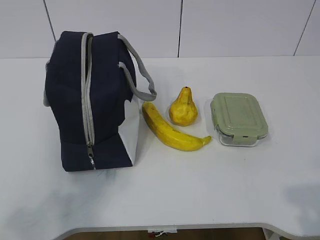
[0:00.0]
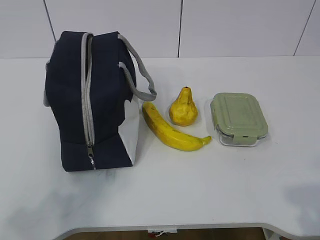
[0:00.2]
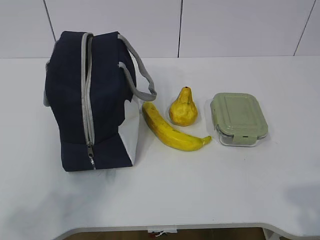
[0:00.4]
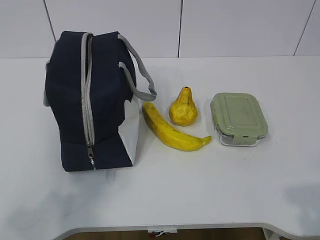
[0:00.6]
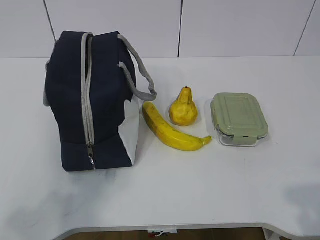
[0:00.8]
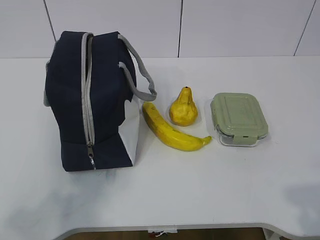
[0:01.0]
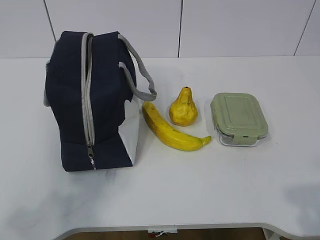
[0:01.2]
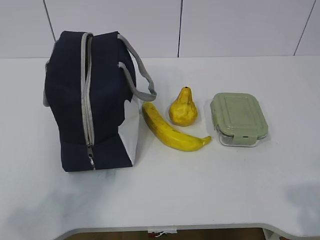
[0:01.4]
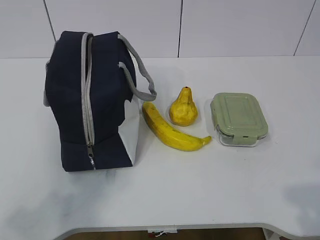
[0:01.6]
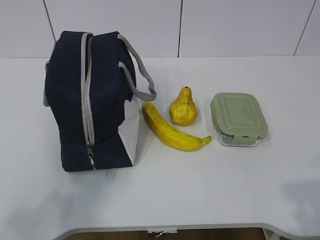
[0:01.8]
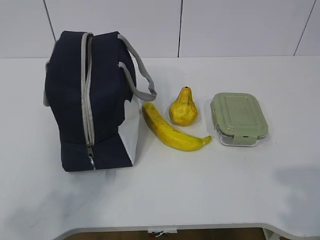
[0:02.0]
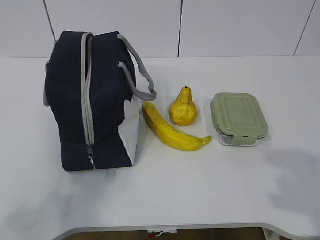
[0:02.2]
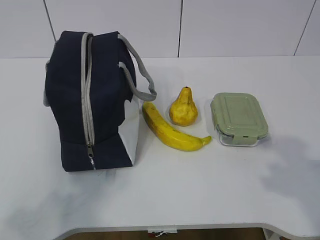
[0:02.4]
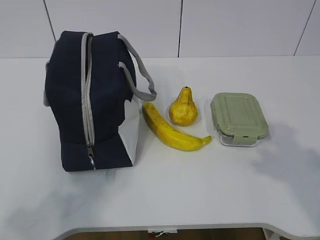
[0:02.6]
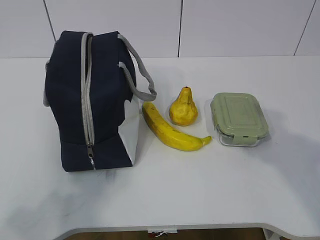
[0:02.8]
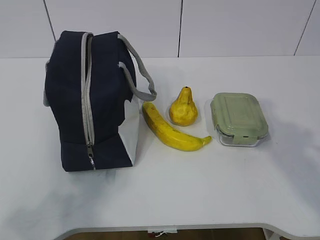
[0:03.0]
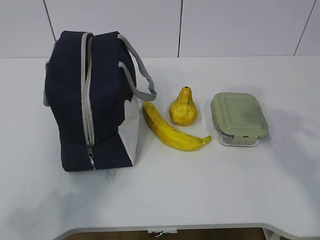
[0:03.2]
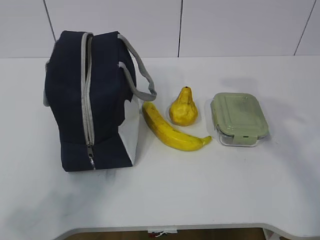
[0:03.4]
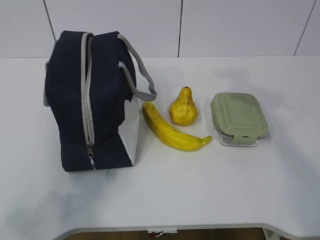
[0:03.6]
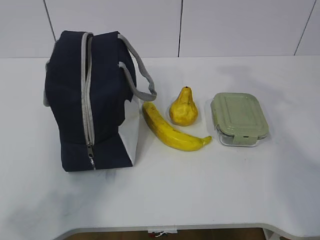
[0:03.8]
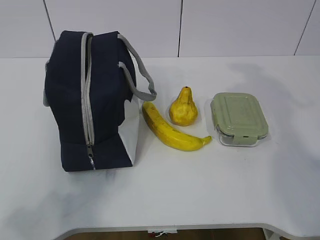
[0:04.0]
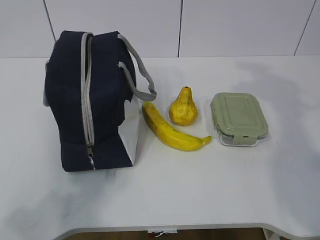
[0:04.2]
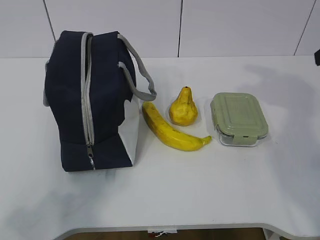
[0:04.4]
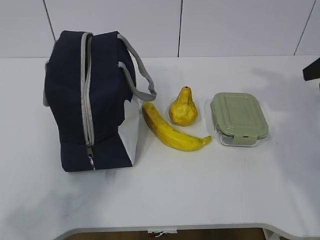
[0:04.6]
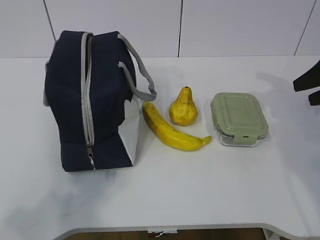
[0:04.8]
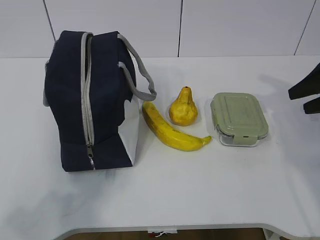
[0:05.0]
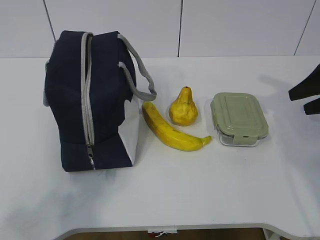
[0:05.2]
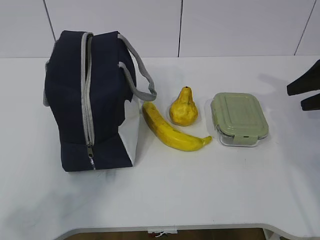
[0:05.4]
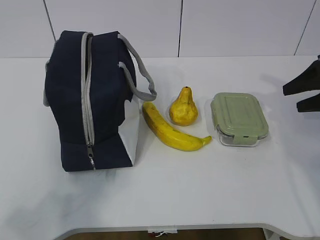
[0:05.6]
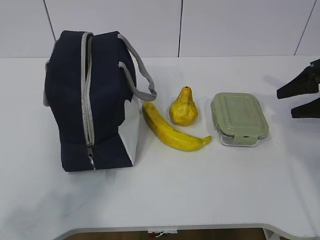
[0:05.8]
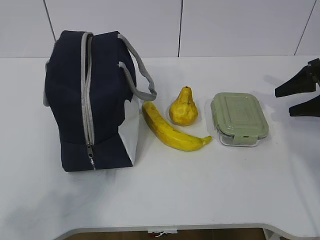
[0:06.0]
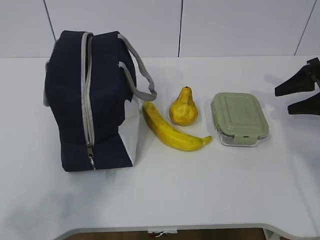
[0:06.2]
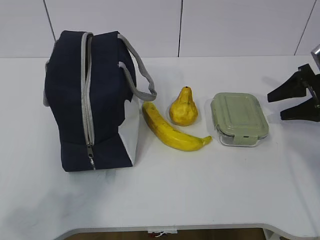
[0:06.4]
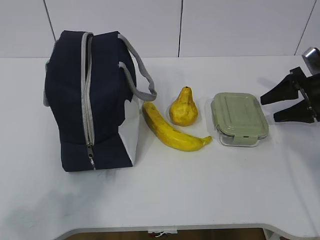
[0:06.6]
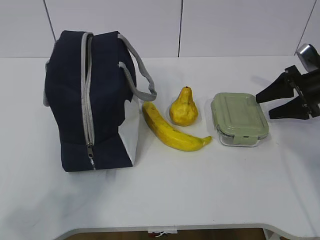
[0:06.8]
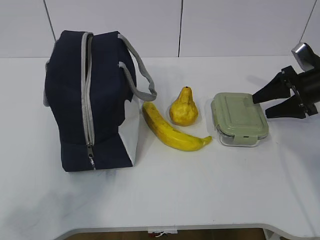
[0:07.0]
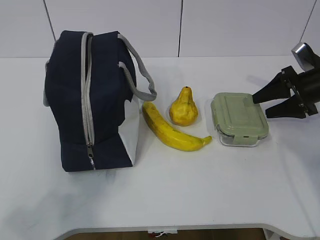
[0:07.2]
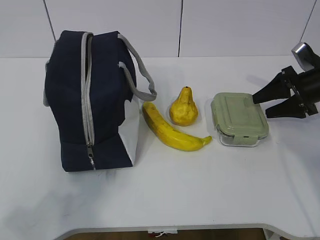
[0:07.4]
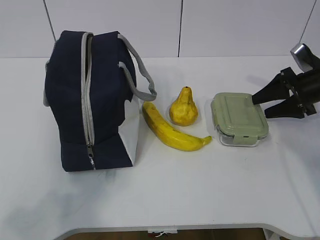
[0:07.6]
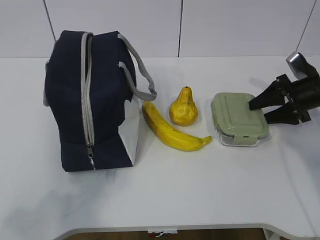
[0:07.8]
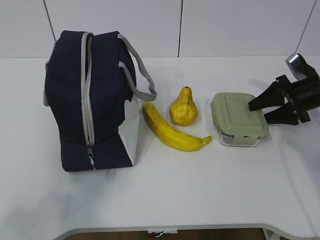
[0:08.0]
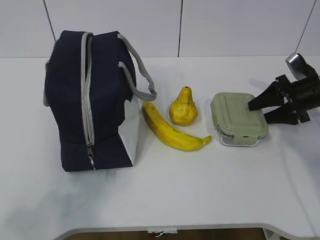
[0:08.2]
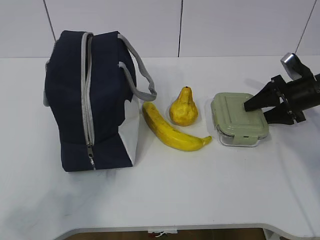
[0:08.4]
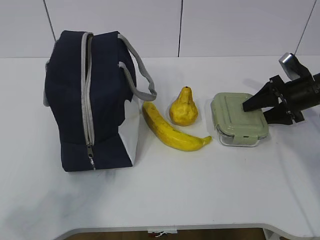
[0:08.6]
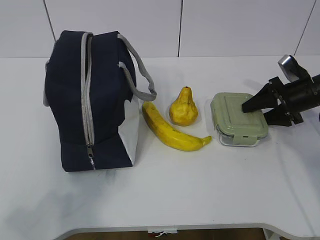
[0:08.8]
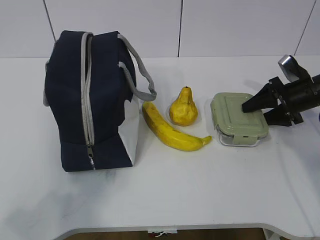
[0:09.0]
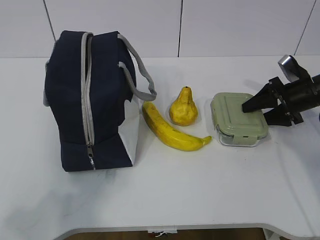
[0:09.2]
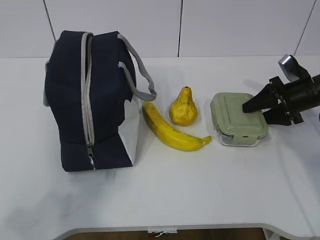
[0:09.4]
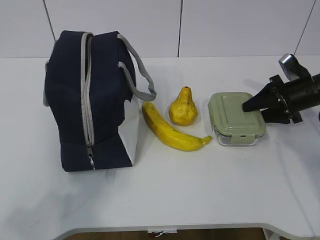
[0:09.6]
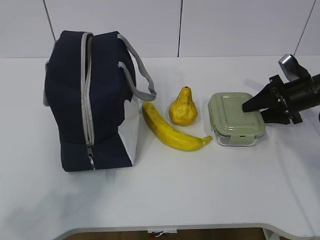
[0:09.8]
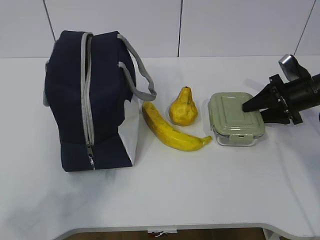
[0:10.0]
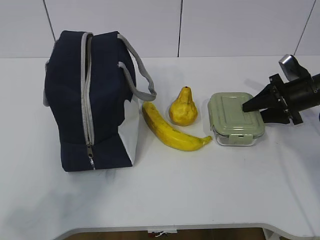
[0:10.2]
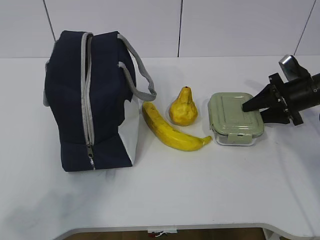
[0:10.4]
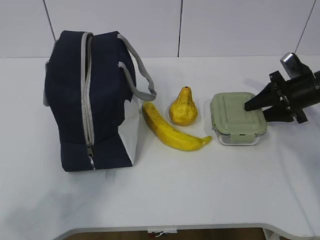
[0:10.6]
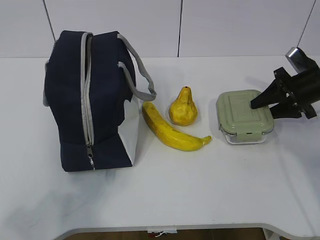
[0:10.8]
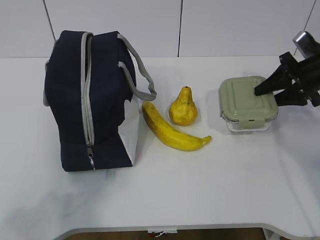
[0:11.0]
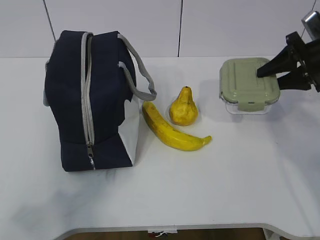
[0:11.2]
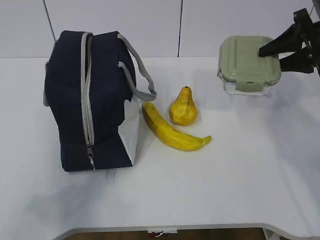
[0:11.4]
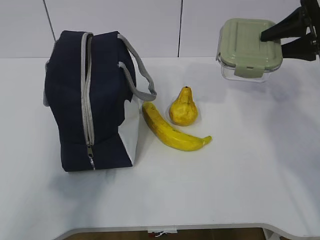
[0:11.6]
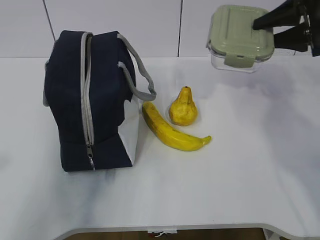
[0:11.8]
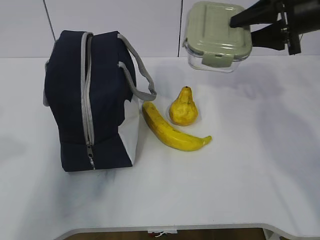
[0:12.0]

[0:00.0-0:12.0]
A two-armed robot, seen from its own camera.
Step, 0:00.0 to 0:08.4: Grab the lunch box with your right hand.
0:01.6 to 0:03.0: The right gripper goes roughly 15 cm forward and upward.
0:04.4 to 0:06.0: The right gripper shifts approximately 15 cm downward and forward.
0:06.0 to 0:07.6: The right gripper ends up approximately 5 cm from where it was.
0:07.6 to 0:10.4: The grippers make only small movements.
0:10.4 to 0:12.0: The right gripper shifts roughly 15 cm upward, while the left gripper moves forward, about 15 cm.

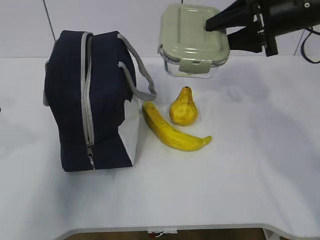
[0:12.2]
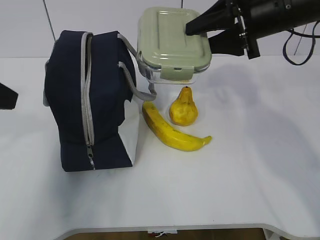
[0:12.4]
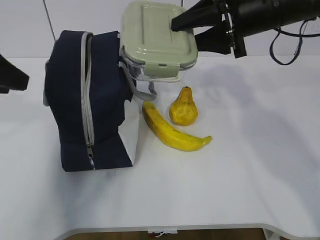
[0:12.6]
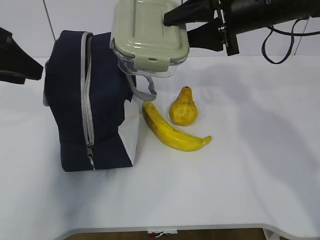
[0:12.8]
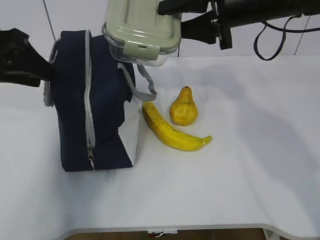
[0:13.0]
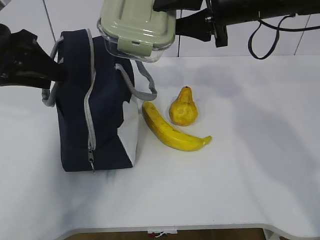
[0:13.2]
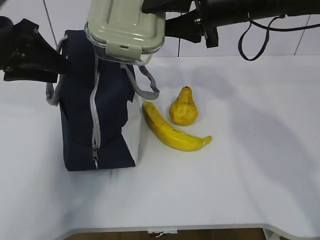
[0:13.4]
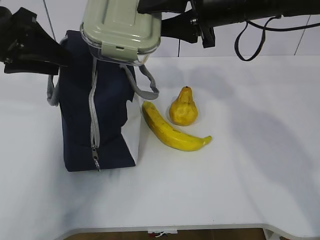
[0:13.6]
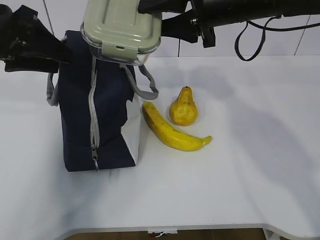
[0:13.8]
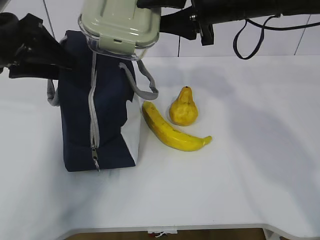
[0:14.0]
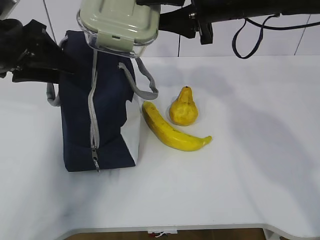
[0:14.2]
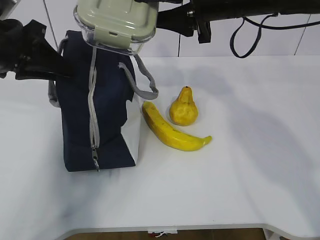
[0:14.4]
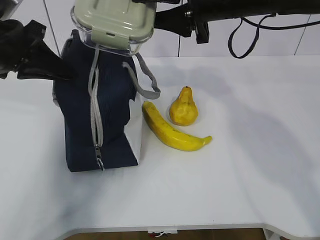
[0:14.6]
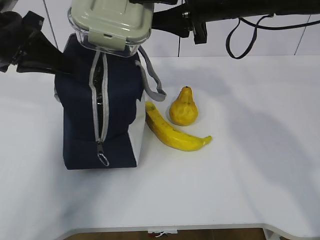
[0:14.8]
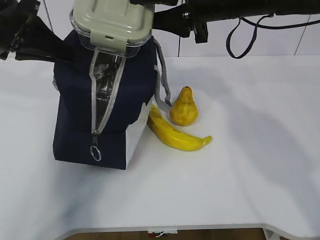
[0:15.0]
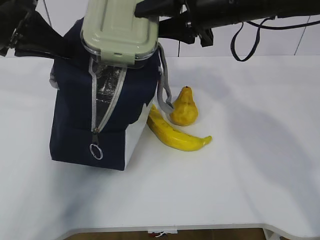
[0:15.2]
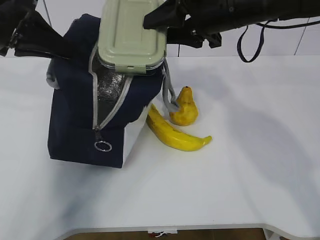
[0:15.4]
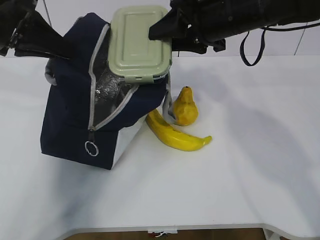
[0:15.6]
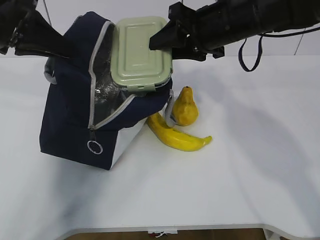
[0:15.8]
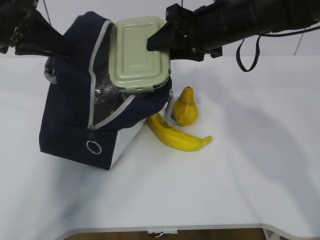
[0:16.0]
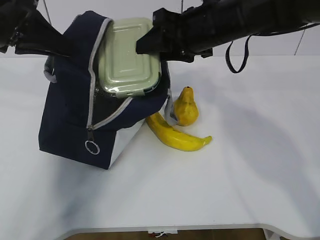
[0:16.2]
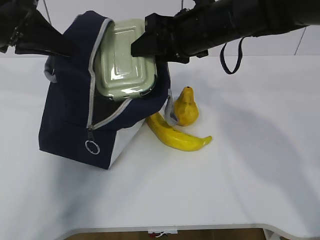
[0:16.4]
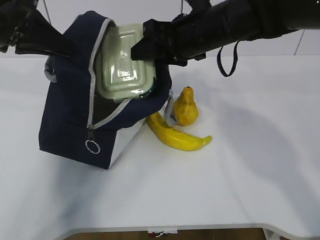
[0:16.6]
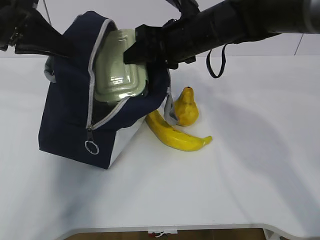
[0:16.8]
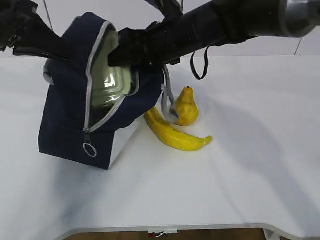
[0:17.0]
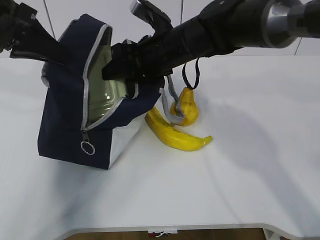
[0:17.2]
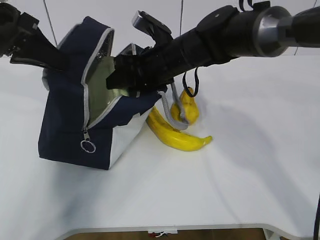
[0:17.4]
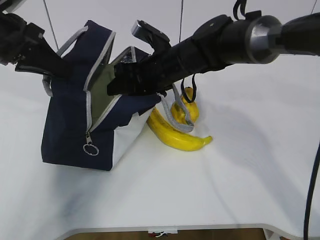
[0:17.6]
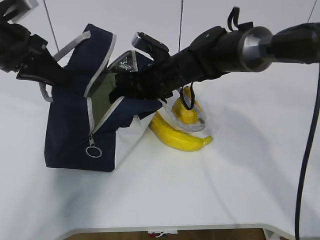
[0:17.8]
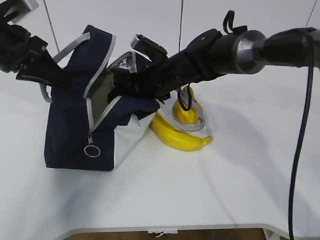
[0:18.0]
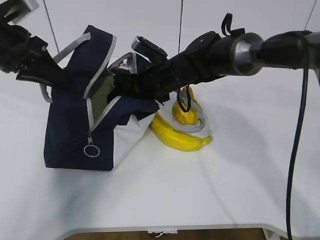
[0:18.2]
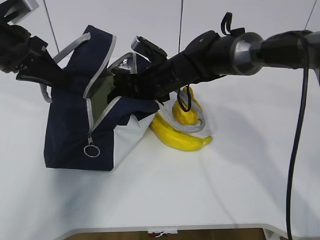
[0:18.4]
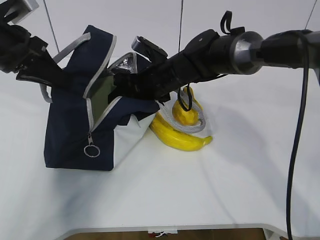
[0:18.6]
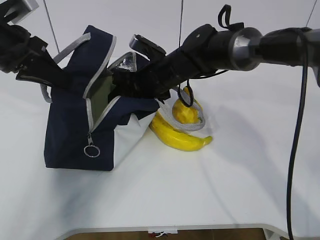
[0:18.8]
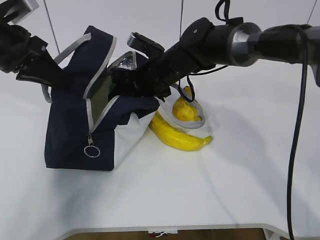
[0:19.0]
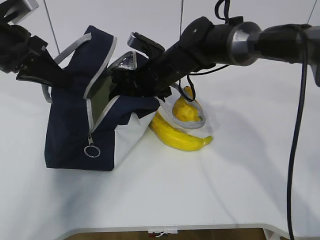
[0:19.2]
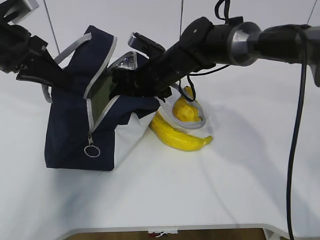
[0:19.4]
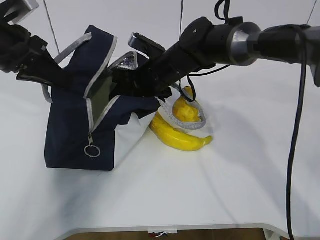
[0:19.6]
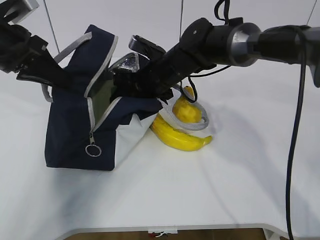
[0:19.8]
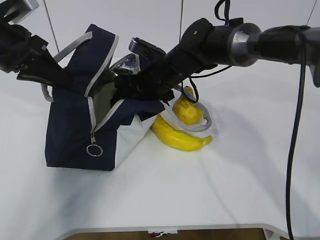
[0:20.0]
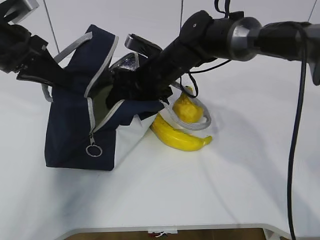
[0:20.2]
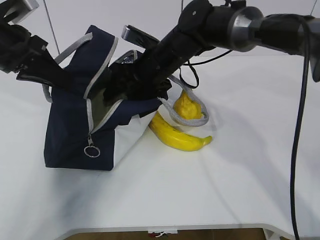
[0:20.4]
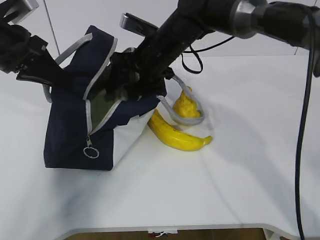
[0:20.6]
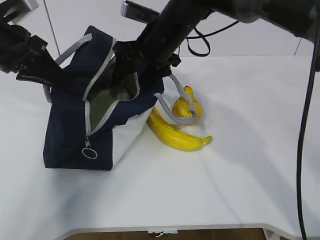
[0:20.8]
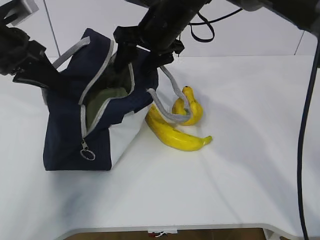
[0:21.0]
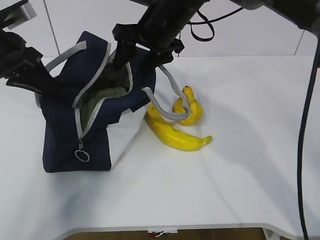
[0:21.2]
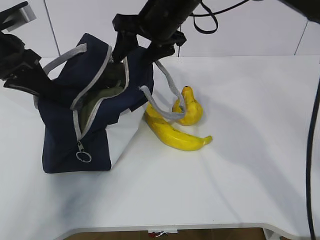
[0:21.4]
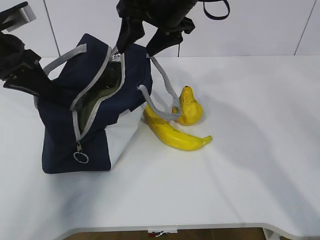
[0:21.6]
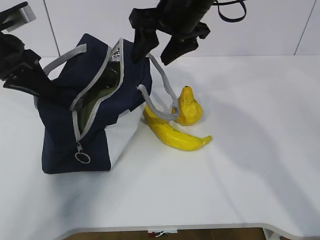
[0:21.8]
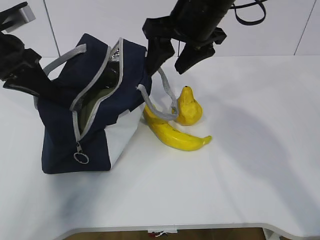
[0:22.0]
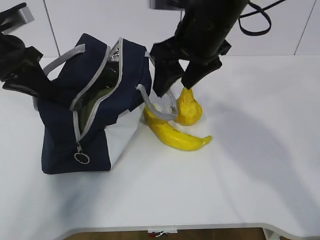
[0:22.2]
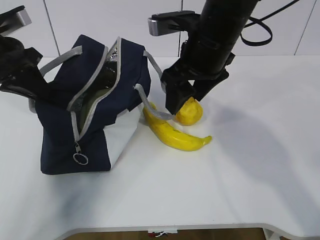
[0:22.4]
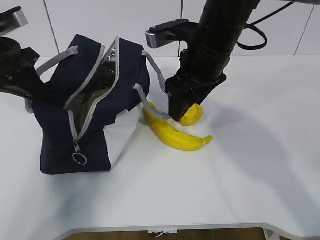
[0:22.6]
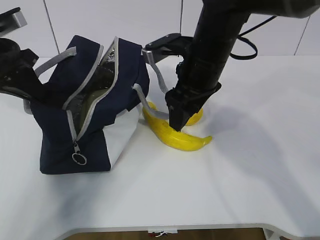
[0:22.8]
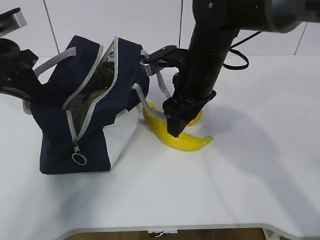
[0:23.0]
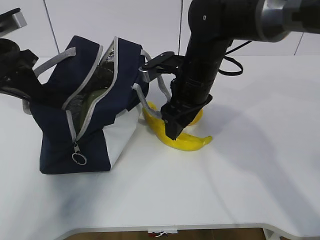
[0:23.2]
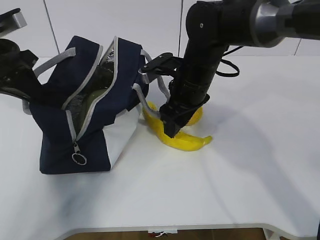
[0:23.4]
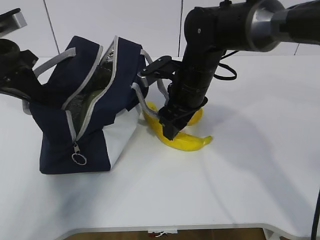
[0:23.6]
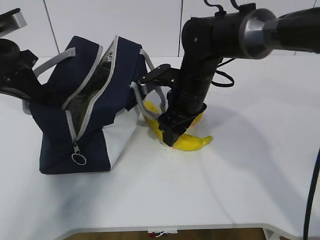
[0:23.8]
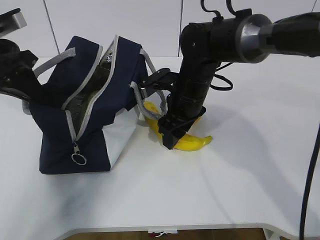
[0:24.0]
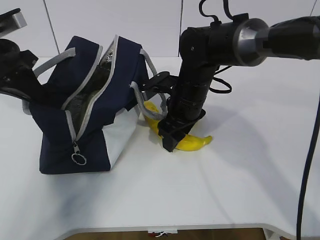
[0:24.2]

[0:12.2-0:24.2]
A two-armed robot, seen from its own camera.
Step, 0:12.6 to 0:17.2: Place it into the bag with your right hand.
Step, 0:17.4 to 0:20.2: Grab the banana with your right hand.
Step, 0:20.4 to 0:24.0: Place it into the bag with your right hand.
0:12.2 to 0:13.8: The left gripper heads forward, covering some 15 cm; the right gripper moves to the left, roughly 10 cm.
0:13.8 to 0:15.2: The left gripper closes up.
0:15.2 to 0:16.6: The right gripper shifts by some 5 cm.
0:16.6 to 0:18.2: The right gripper is displaced downward and to the left by approximately 15 cm.
0:18.2 to 0:19.8: The grippers move only a little.
0:19.8 to 0:21.2: The right gripper shifts about 10 cm upward.
0:21.2 to 0:22.6: The right gripper shifts approximately 10 cm backward.
0:22.6 to 0:24.2: The right gripper moves downward, about 10 cm.
